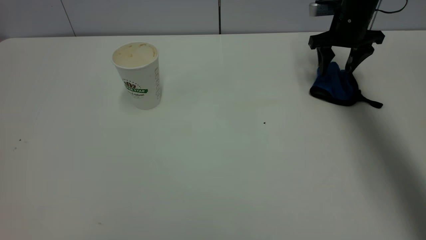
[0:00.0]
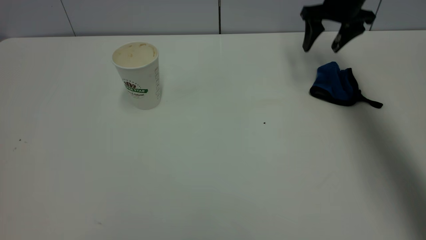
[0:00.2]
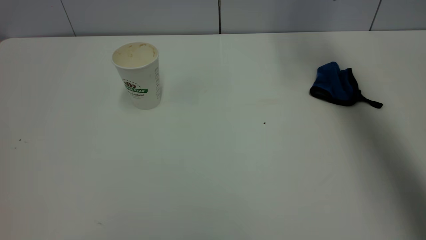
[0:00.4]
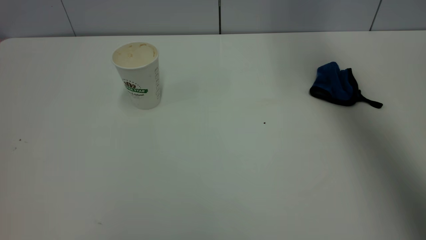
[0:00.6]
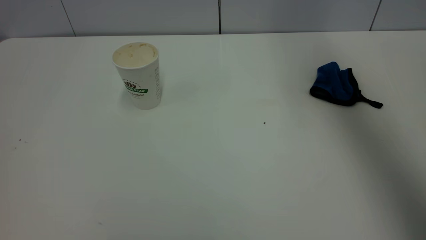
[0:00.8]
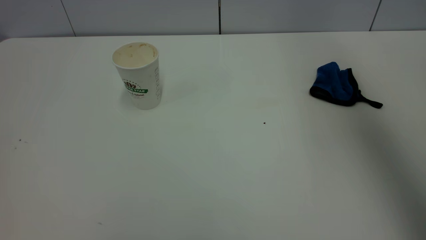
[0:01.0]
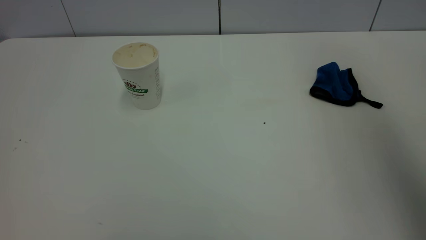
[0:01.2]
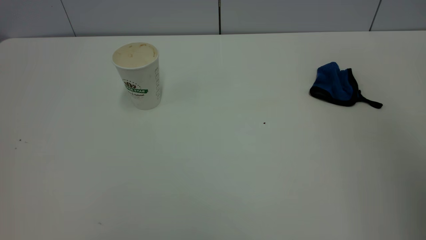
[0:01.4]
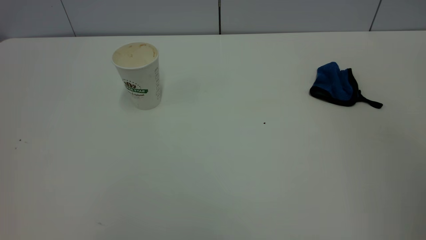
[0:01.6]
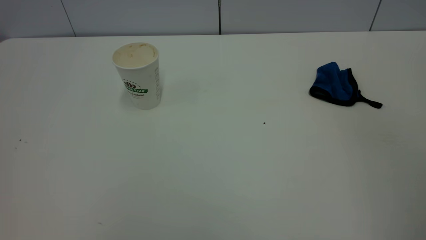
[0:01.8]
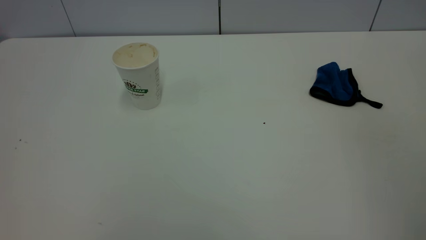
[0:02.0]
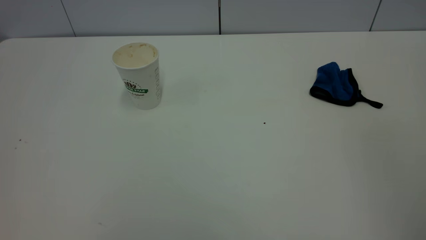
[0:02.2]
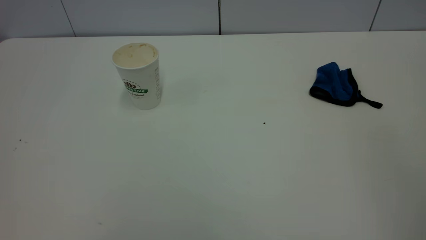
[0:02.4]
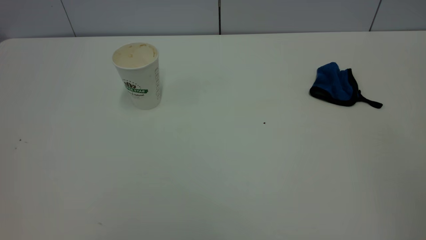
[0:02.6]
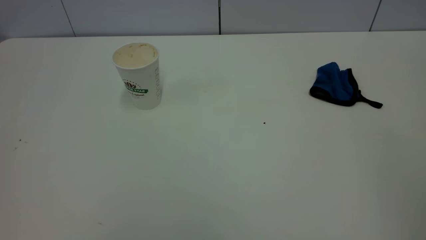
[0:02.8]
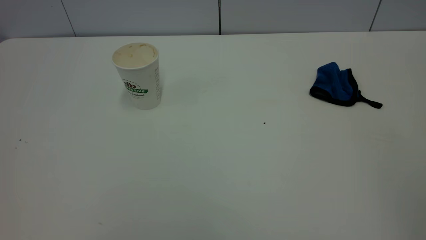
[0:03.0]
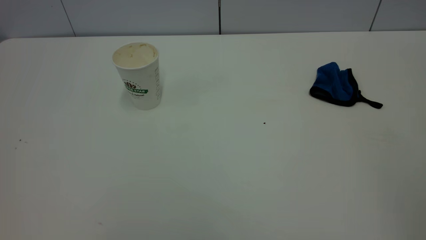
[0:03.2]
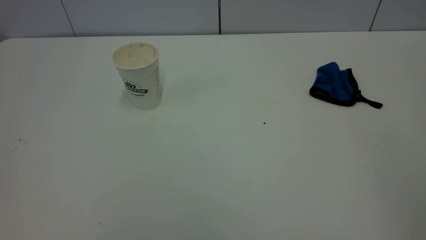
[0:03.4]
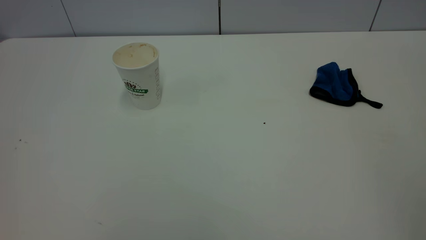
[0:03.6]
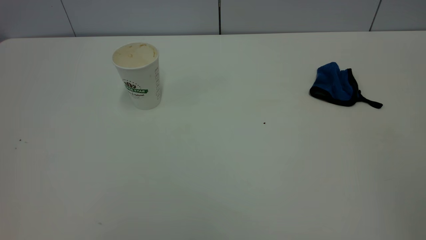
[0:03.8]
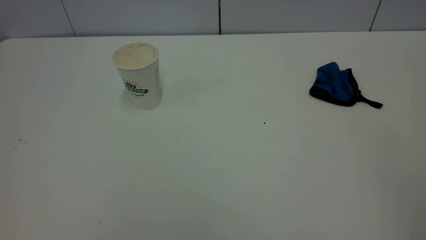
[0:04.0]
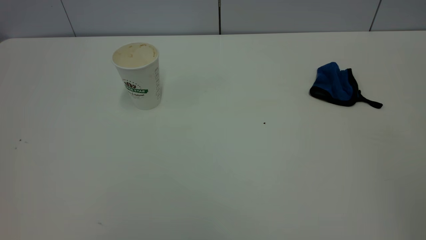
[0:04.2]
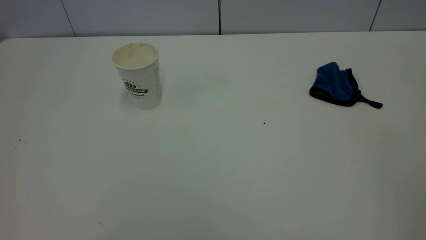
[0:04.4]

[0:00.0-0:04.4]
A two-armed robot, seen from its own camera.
Task of the whole recording: the left gripper pick up the fallen cup and place it upright, the right gripper grasp the blue rag and wipe the tea stain on the table, the right gripper put the blue rag back in its original position.
0:00.0 to 0:01.4: The right gripper heads backward and upward, covering approximately 50 cm.
